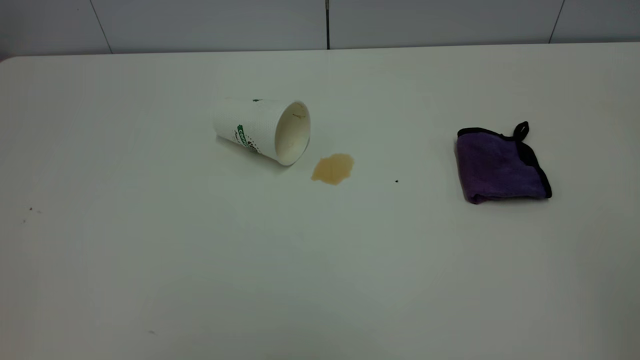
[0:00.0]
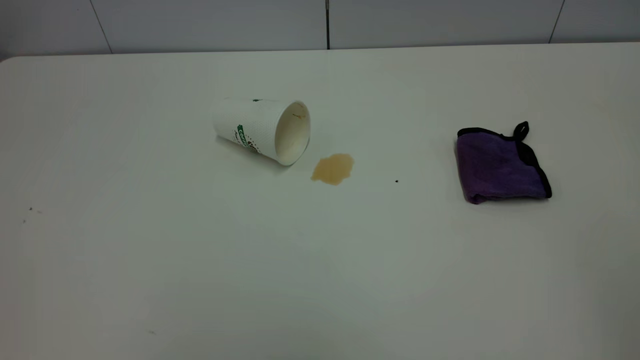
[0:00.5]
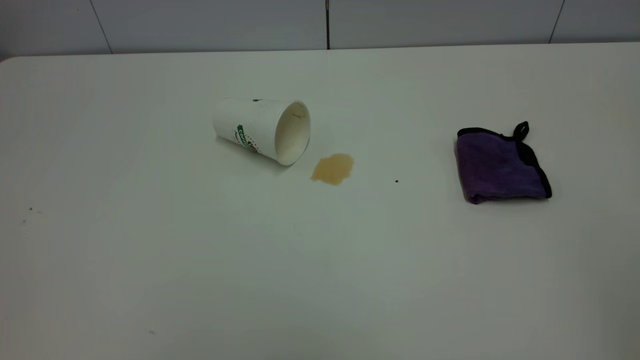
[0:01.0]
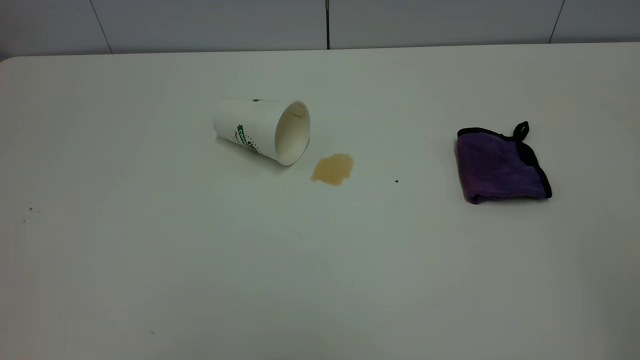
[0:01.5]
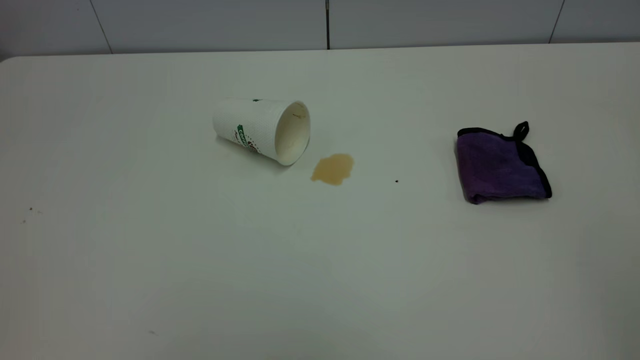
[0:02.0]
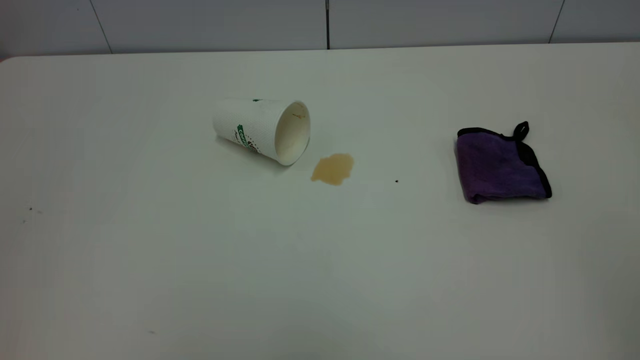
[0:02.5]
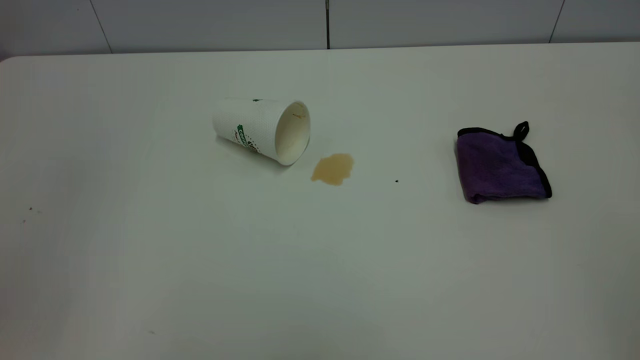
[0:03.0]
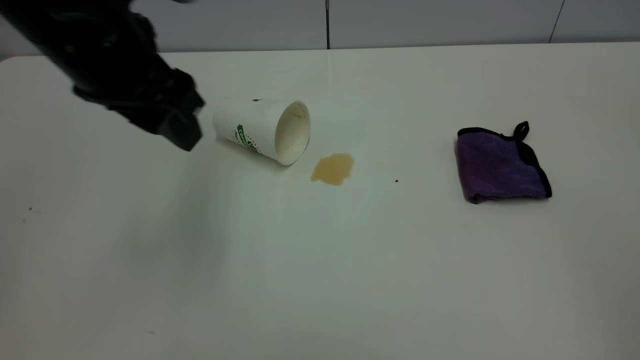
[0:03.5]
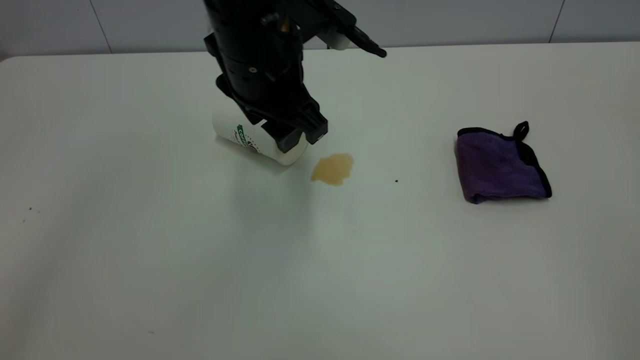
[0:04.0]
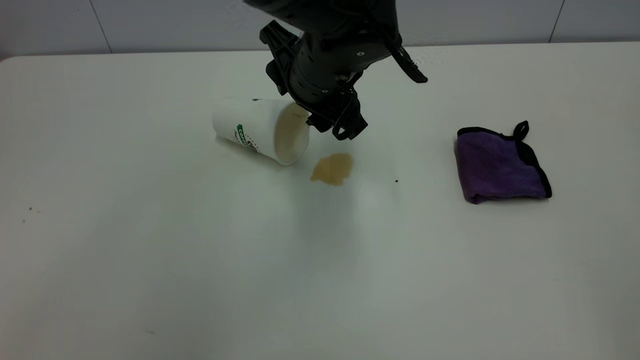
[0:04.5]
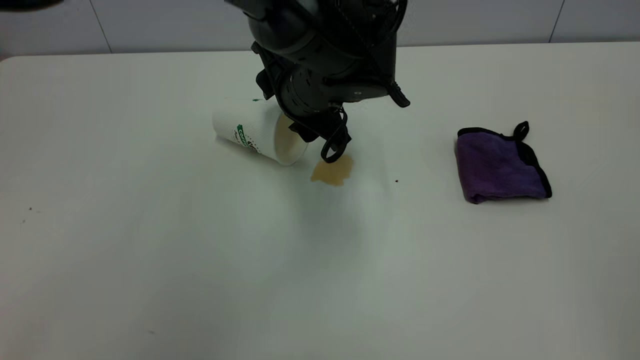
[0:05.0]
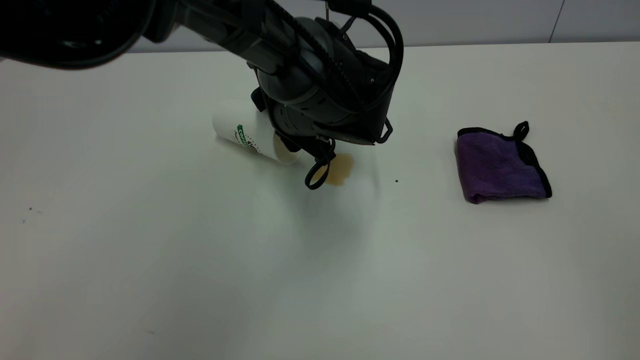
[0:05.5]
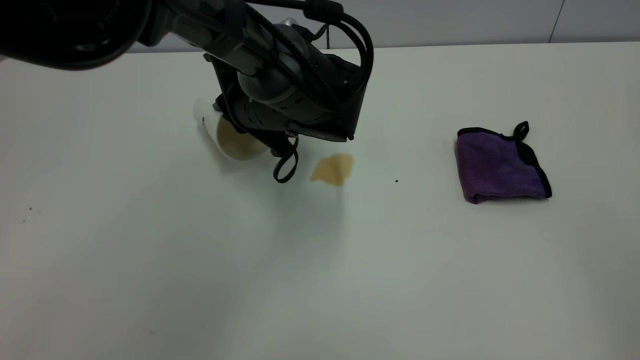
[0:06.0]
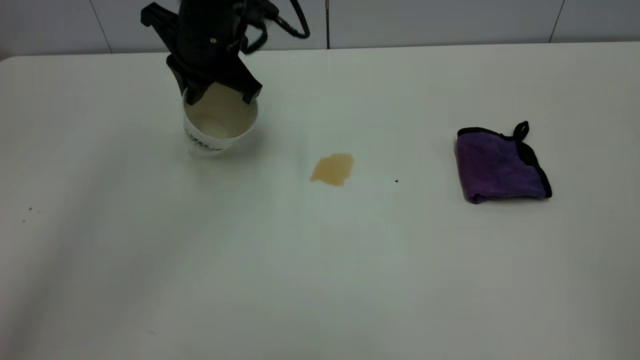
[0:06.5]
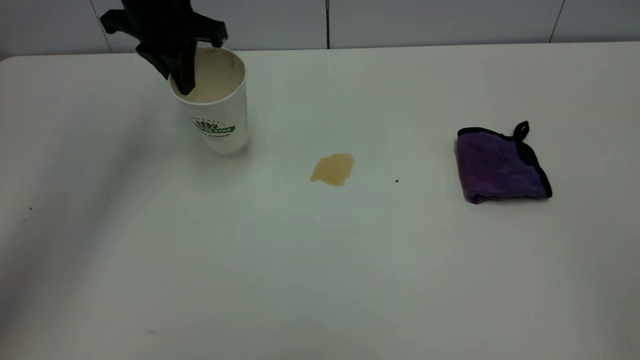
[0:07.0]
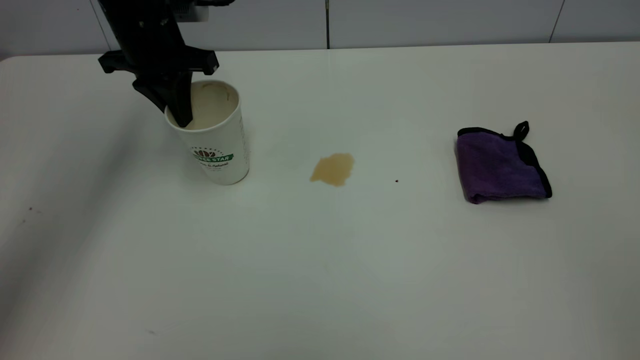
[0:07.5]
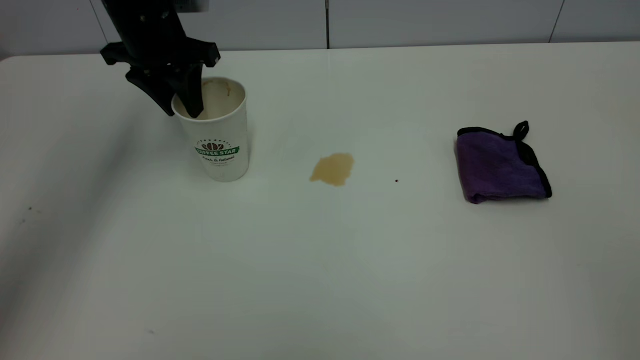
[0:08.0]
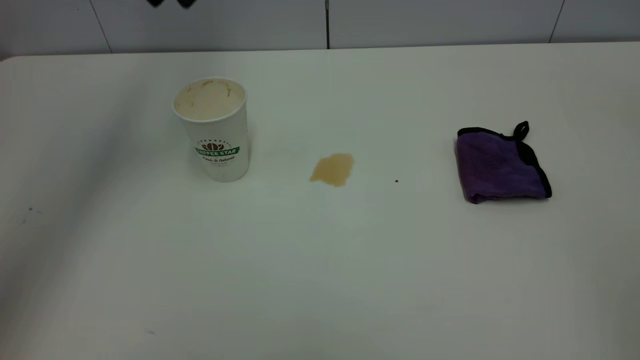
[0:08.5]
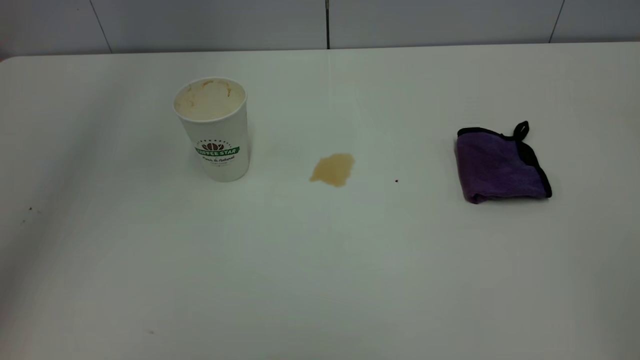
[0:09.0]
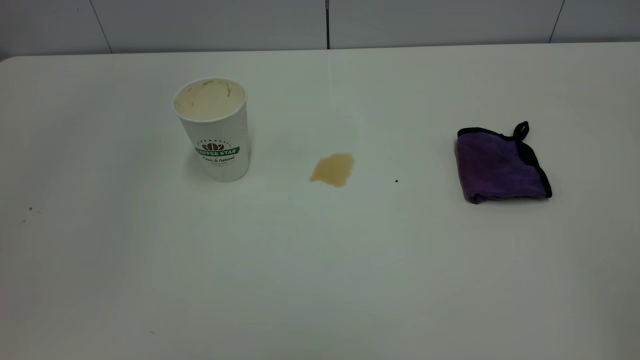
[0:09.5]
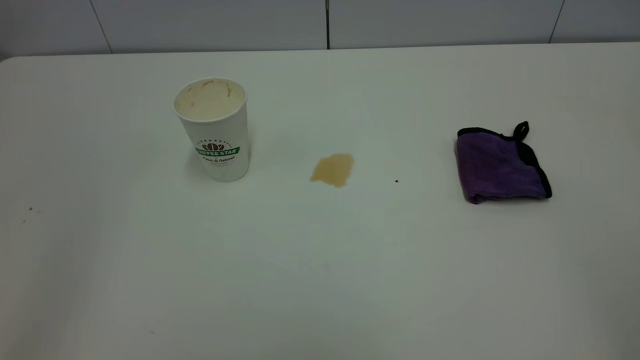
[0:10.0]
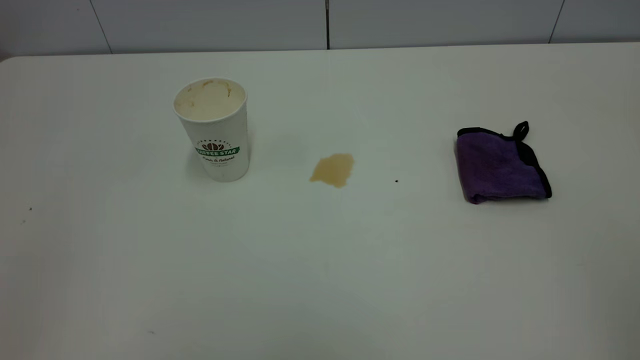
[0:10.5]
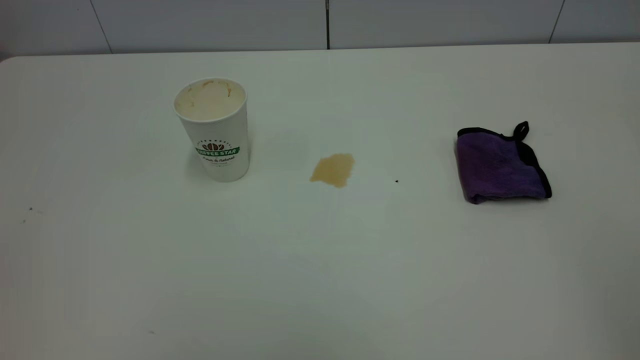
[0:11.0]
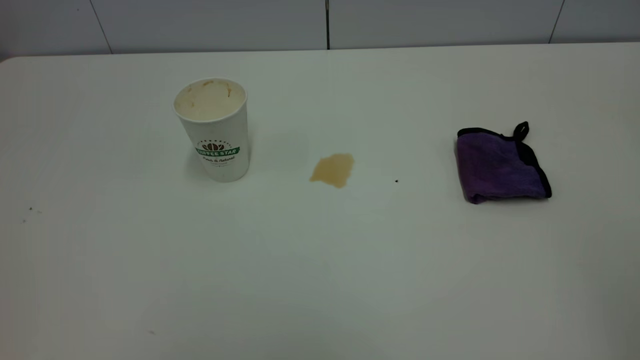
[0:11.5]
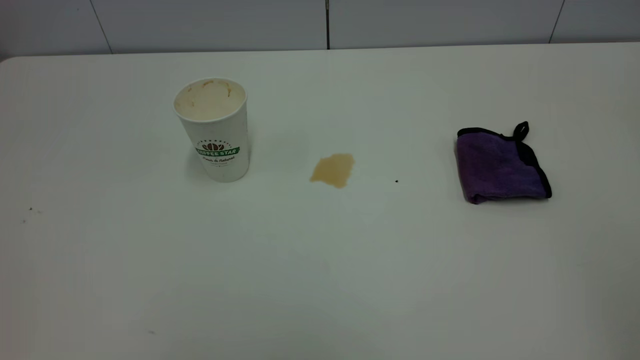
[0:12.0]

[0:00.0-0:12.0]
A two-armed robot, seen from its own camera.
Task of the whole recording: the left gripper pick up the fallen cup and place it upright, the right gripper grasp the purple rag and wipe the tea stain on the table, the right gripper put the purple rag back in its original position.
Step, 0:00.0 to 0:08.0: Stand the paper cup upright.
0:00.0 to 0:02.0: Neither gripper changes place.
0:02.0 to 0:04.0: The left gripper moves forward, to the right and downward, about 50 cm.
0:04.0 to 0:06.0: The left gripper heads downward and forward, covering about 15 cm, and closes.
0:06.0 to 0:08.0: The left gripper heads to the left, upward and forward, covering about 20 cm, and opens up.
0:08.0 to 0:10.0: The left gripper heads backward and upward, covering about 40 cm.

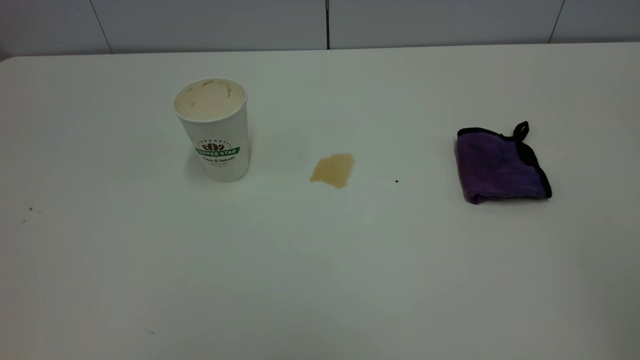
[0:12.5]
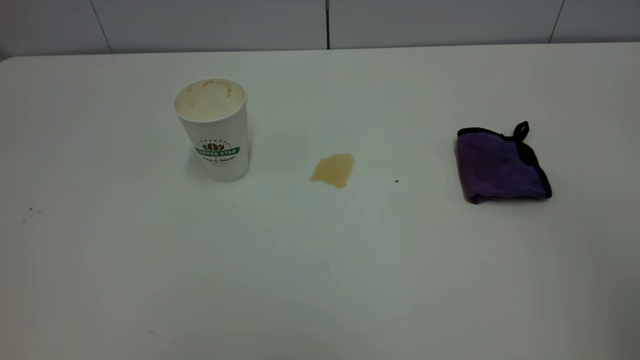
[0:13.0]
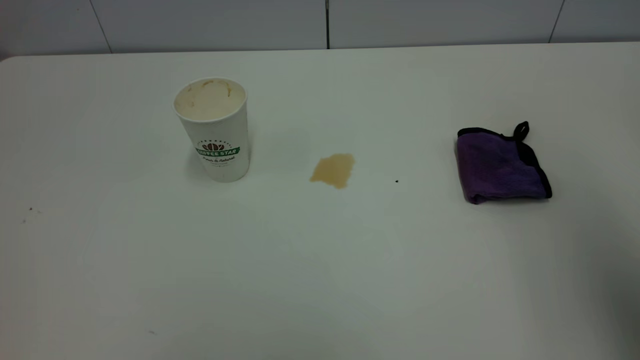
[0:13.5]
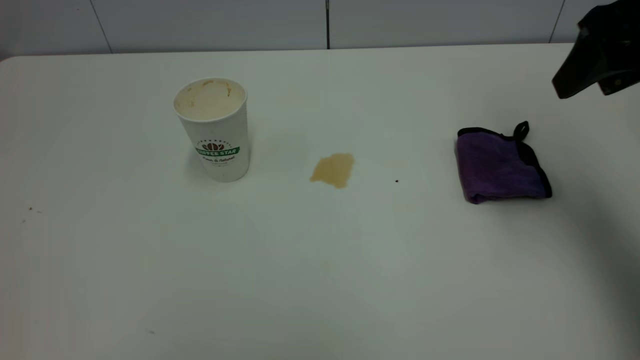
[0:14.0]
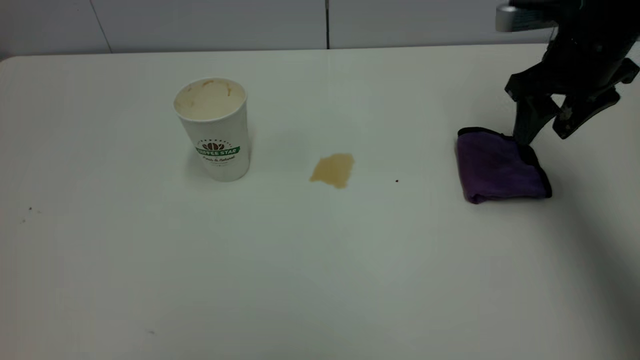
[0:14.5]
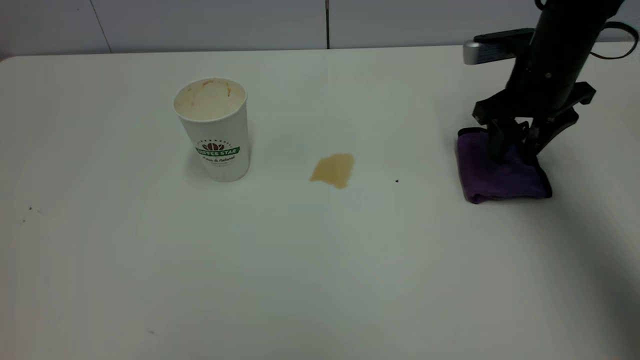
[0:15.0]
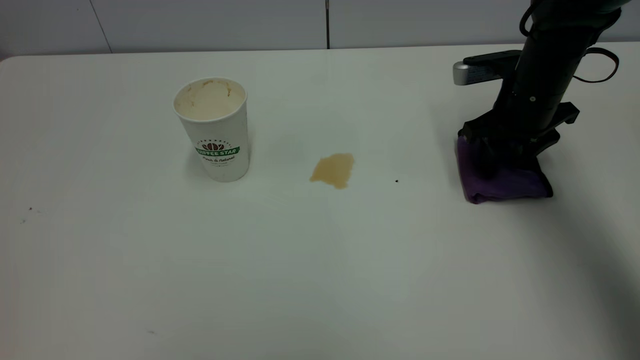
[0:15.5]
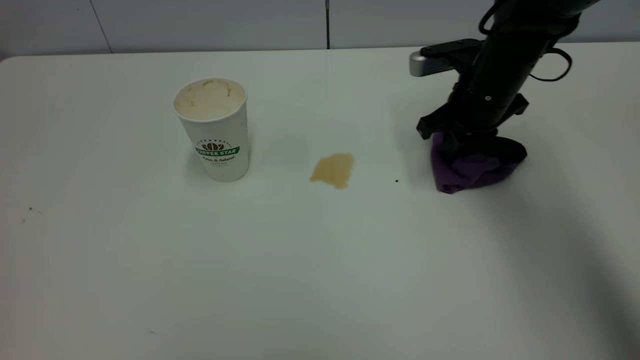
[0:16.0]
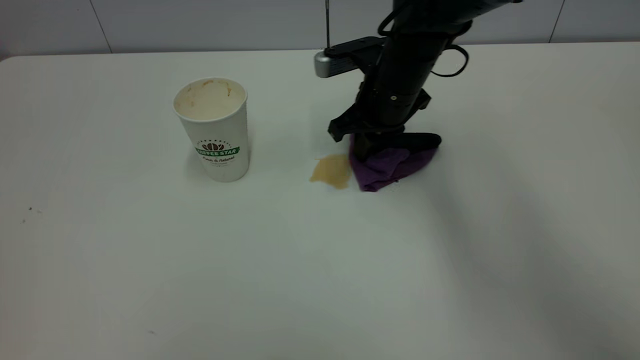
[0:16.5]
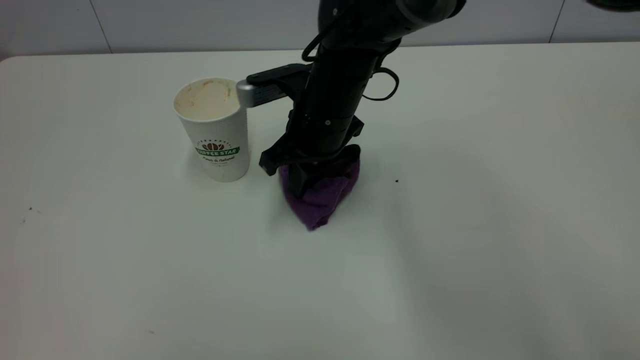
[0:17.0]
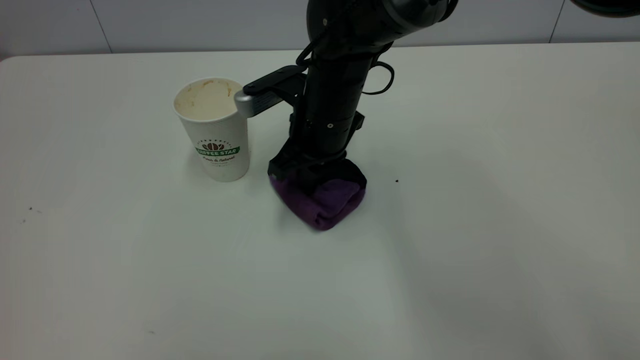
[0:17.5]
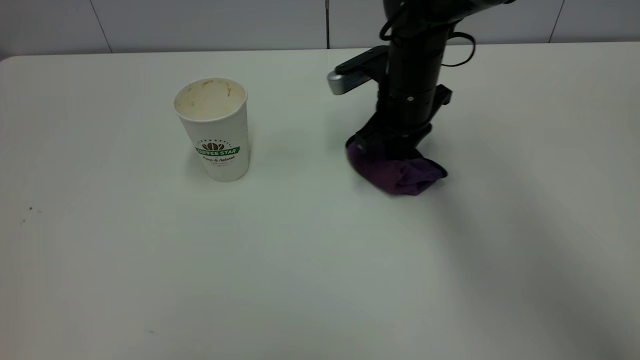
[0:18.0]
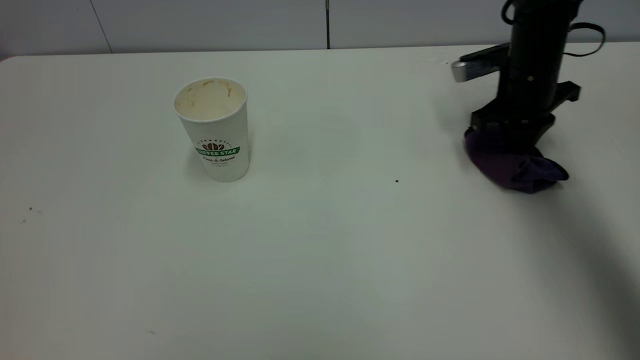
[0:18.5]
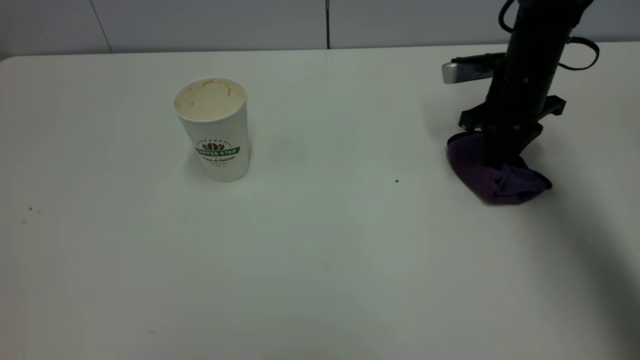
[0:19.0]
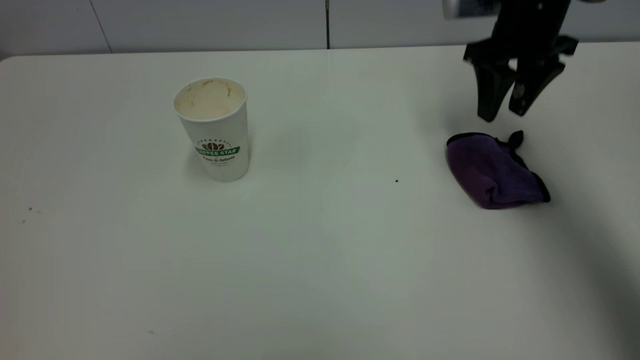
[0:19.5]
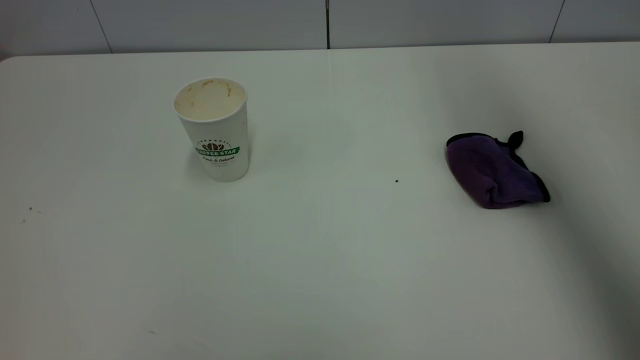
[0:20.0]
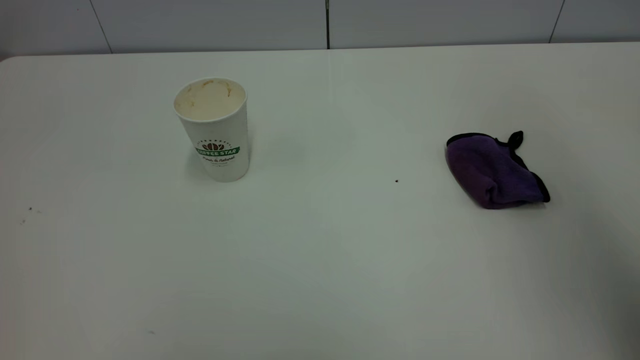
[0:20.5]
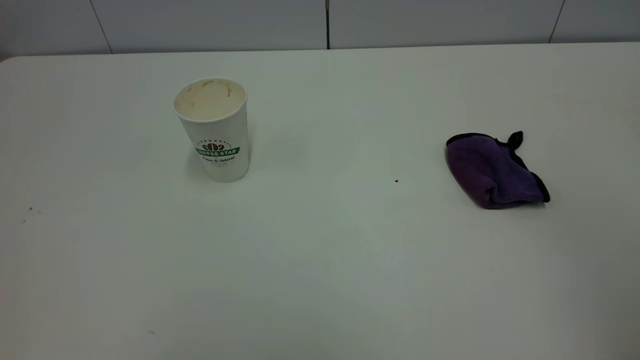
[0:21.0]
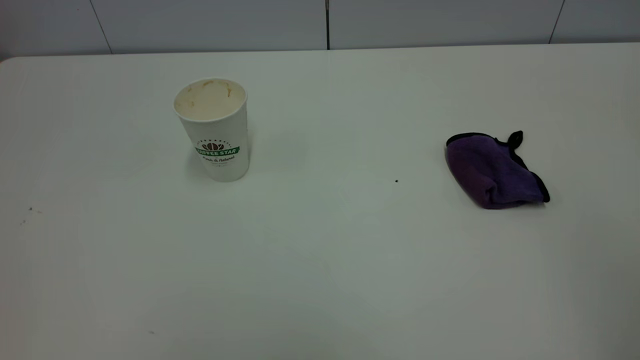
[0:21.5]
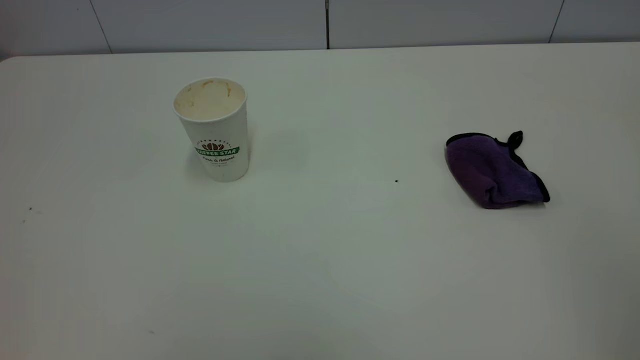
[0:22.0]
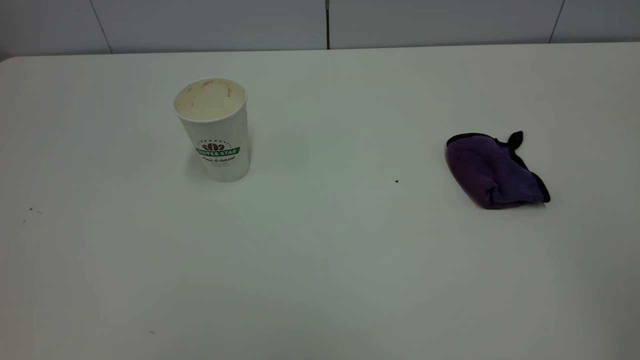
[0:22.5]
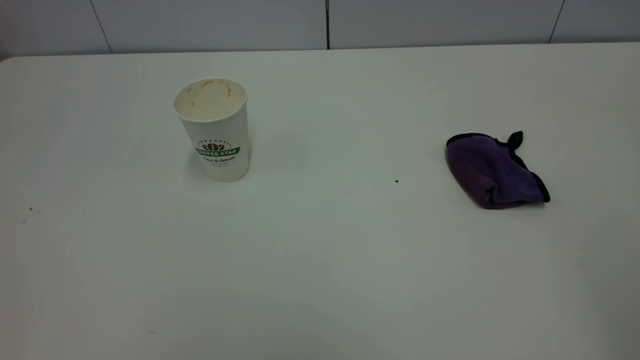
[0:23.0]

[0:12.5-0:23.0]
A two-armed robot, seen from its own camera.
Task of the whole recording: the left gripper pick up the fallen cup and place it upright, the right gripper grasp the purple rag and wipe the tea stain on the table, the right gripper put the purple rag back in its original position.
Step, 0:12.5 to 0:19.5: Wipe the stains off the table with a rag.
0:12.5 to 0:14.5: The right gripper heads forward and downward, covering about 50 cm, and opens up.
0:14.5 to 0:16.5: The right gripper travels to the left by some 20 cm, and closes.
0:16.5 to 0:19.0: The right gripper heads to the right, covering roughly 15 cm.
0:19.0 to 0:21.0: The right gripper goes roughly 50 cm backward and upward, and opens up.
